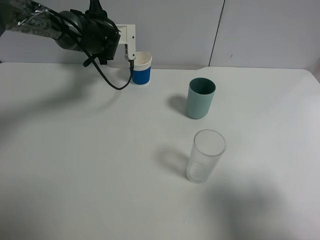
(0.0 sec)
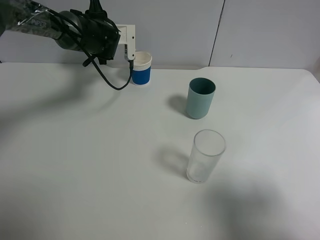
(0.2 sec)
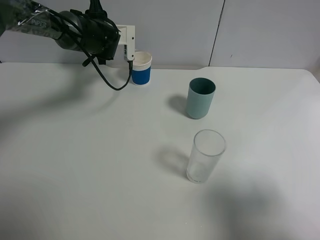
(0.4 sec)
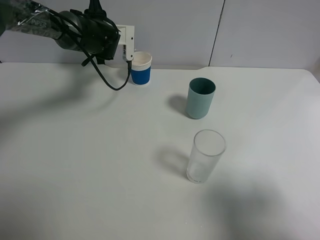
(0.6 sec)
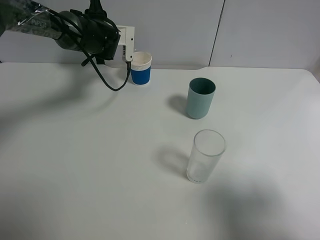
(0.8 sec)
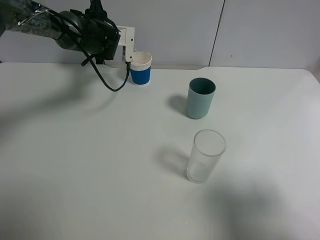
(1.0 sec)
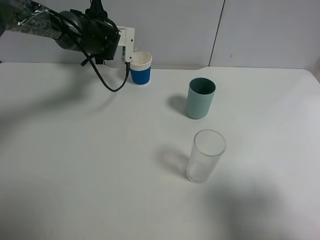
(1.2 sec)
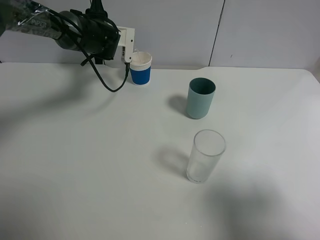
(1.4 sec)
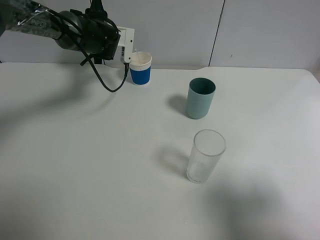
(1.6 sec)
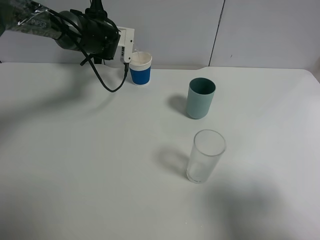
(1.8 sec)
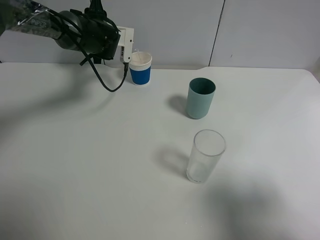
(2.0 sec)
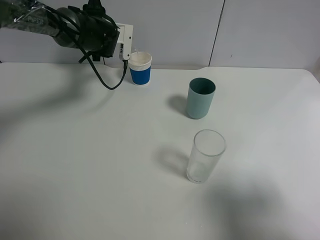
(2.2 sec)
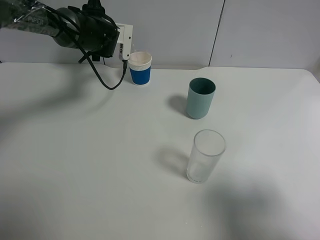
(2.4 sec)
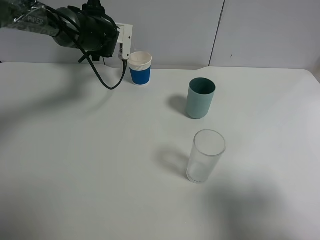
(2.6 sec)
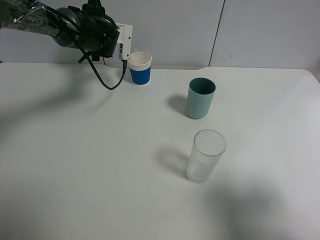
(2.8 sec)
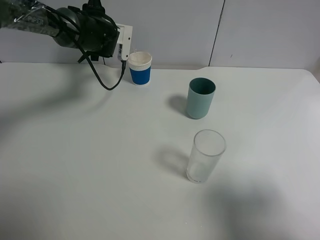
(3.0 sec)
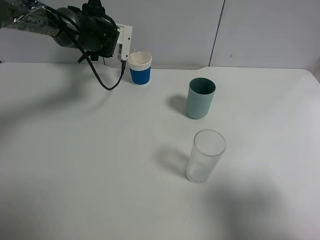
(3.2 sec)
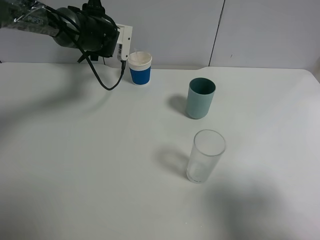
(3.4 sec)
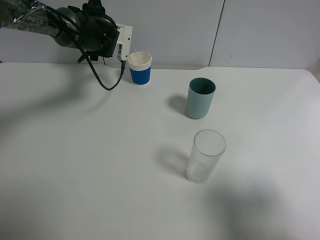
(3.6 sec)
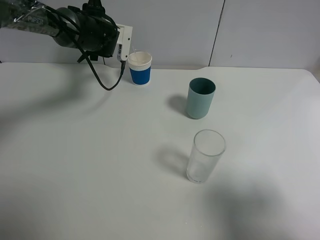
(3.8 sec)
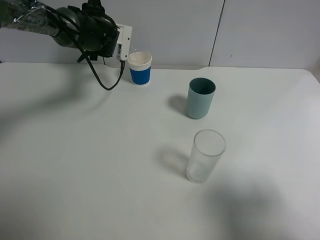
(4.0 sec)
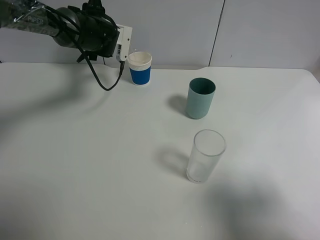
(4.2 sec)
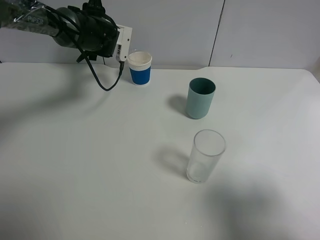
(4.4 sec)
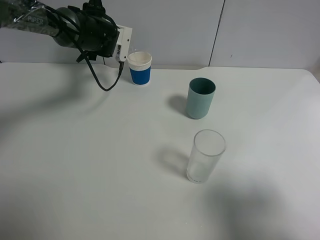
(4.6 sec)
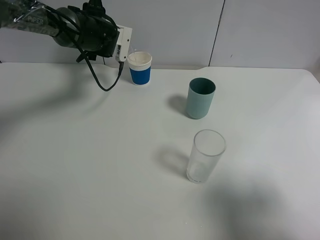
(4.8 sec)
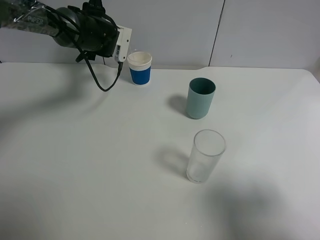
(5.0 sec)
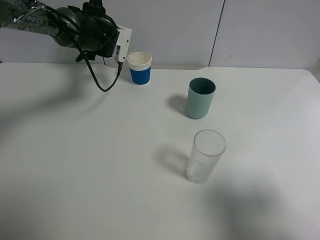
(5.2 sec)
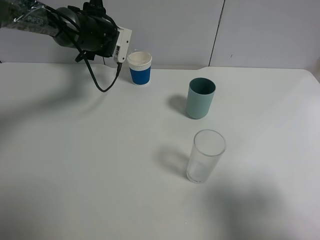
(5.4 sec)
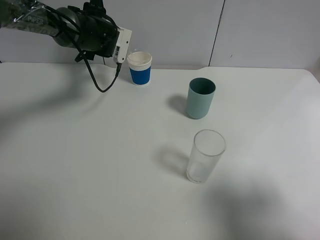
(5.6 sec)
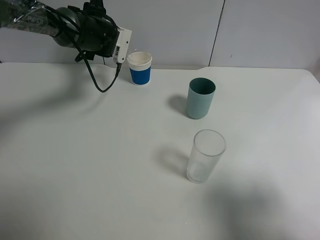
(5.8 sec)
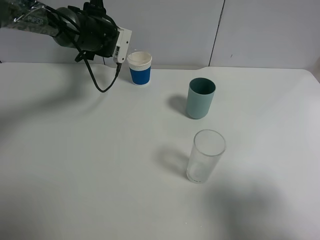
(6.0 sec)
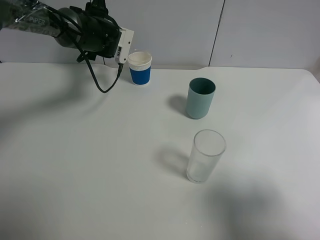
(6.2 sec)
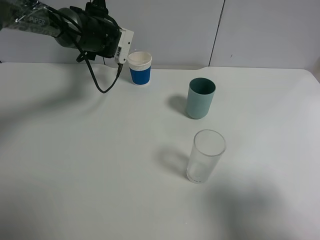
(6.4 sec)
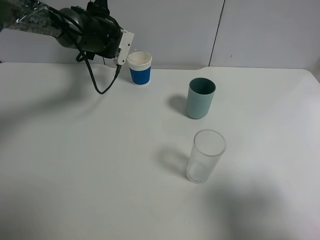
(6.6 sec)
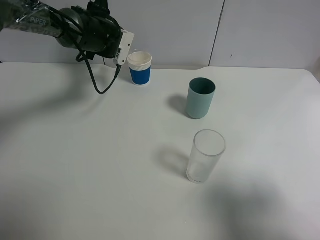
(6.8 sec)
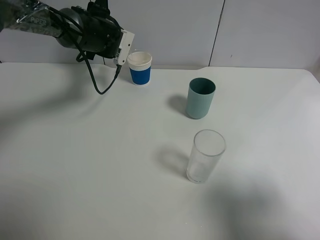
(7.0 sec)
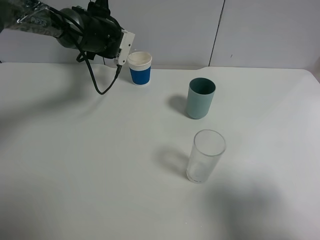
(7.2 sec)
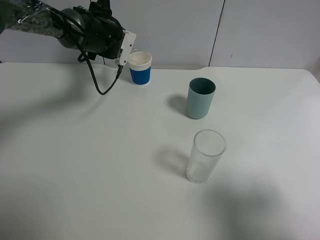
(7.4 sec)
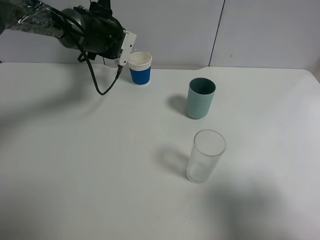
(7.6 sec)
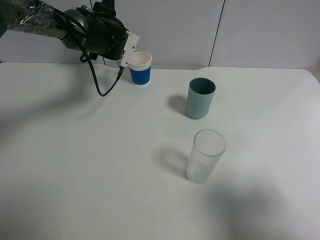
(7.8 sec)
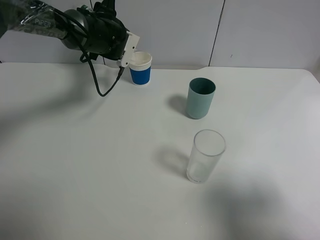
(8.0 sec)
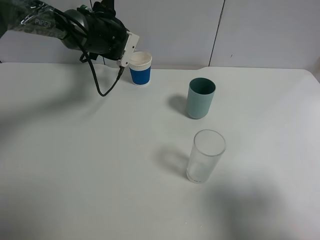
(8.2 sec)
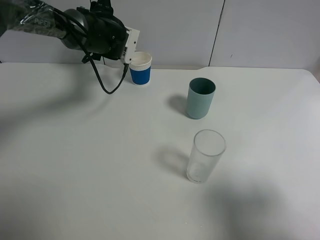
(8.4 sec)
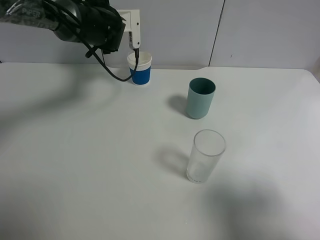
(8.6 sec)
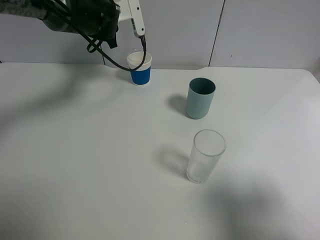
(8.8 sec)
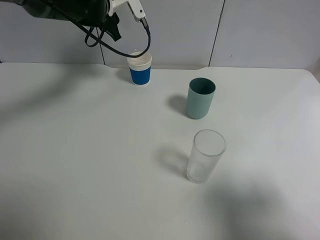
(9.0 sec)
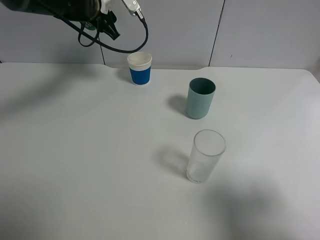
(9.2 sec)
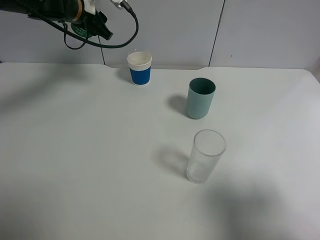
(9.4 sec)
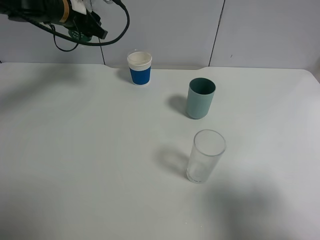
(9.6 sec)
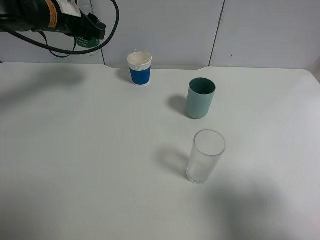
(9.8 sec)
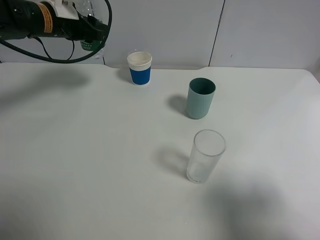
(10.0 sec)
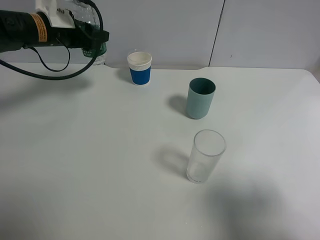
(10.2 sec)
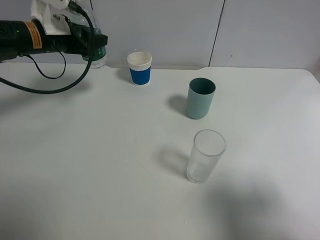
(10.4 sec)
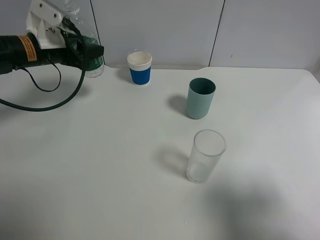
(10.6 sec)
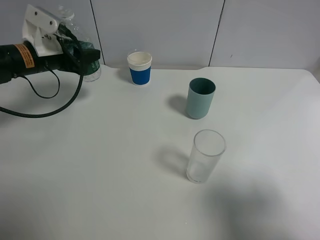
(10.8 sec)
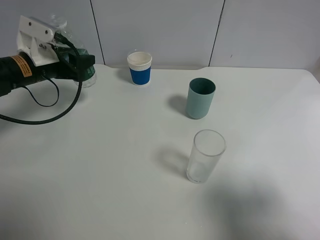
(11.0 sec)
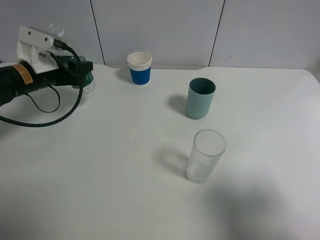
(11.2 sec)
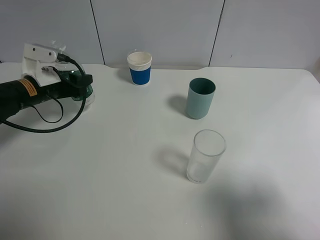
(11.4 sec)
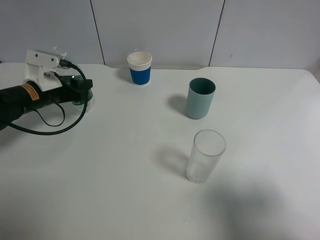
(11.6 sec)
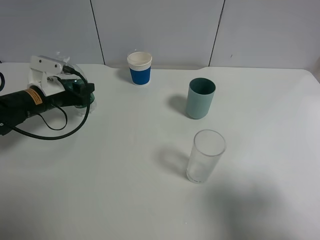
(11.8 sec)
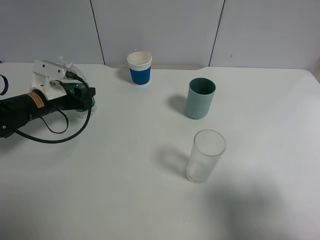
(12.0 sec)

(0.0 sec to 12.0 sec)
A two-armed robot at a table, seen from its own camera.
Task of the whole recording: use a gripper to hold the bottle of the drink and pour it into a random cup.
Step, 0.0 sec - 8.4 sec: Pour the mineral water into the paper cup with the left gripper.
0.0 sec - 1.6 sec: The grippers move only a little.
1.6 sec - 3.0 sec: Both grippers stay put.
3.0 sec - 4.4 sec: Both grippers stay about where they are.
4.4 sec - 6.0 sec: Both grippers stay put.
6.0 sec - 7.6 sec: There are only small adjustments of the grippers.
7.6 sec - 9.0 sec: The left gripper travels upward by approximately 5 cm.
9.0 sec - 10.4 sec: The left gripper shifts roughly 15 cm to the left and backward.
10.4 sec - 12.0 sec: The left gripper goes some 10 cm downward.

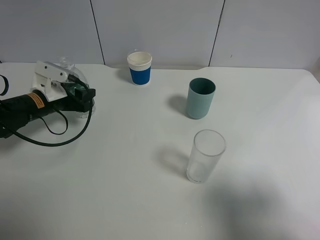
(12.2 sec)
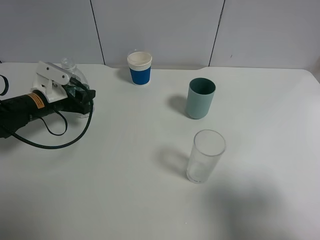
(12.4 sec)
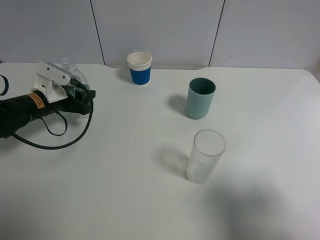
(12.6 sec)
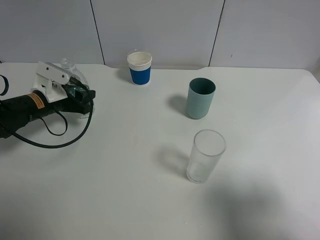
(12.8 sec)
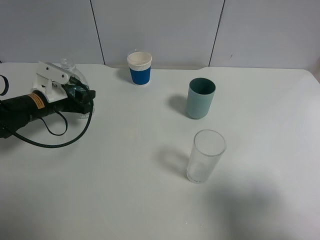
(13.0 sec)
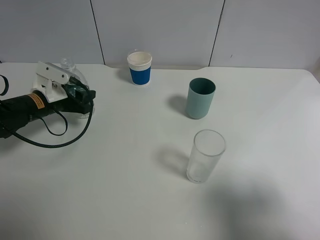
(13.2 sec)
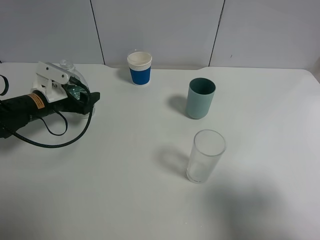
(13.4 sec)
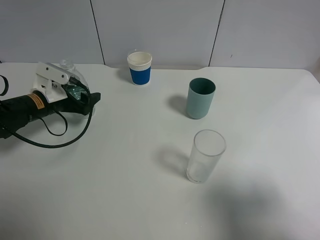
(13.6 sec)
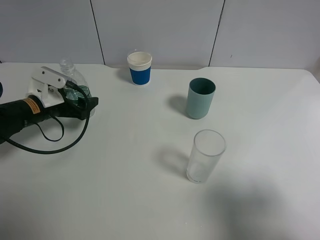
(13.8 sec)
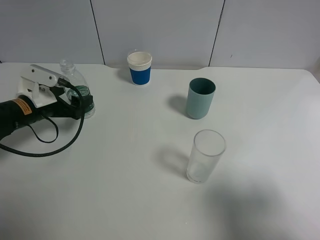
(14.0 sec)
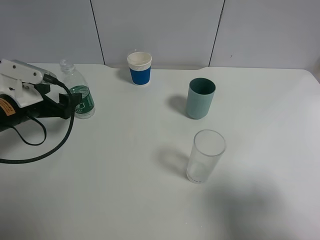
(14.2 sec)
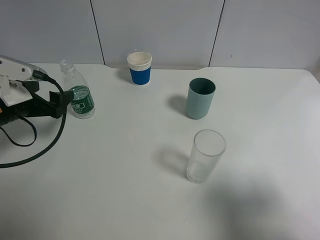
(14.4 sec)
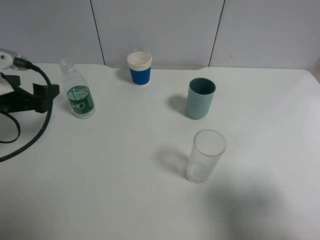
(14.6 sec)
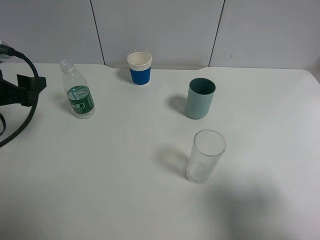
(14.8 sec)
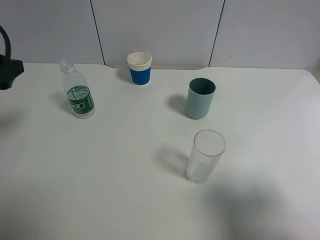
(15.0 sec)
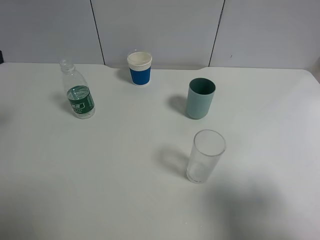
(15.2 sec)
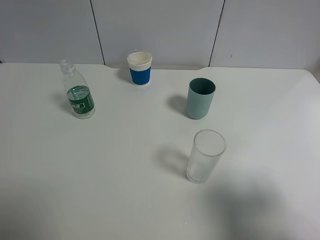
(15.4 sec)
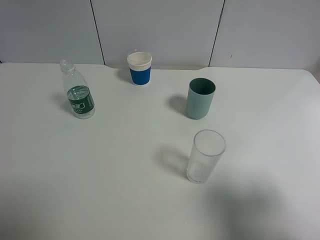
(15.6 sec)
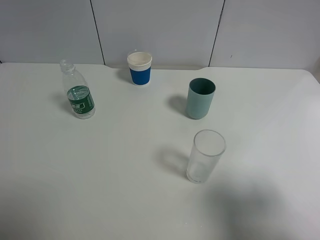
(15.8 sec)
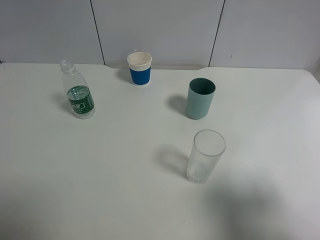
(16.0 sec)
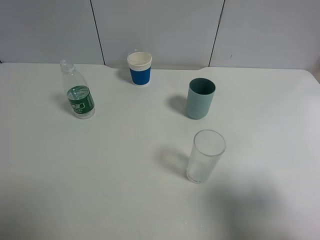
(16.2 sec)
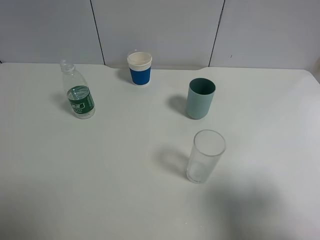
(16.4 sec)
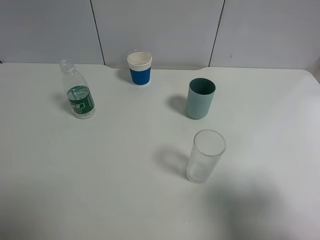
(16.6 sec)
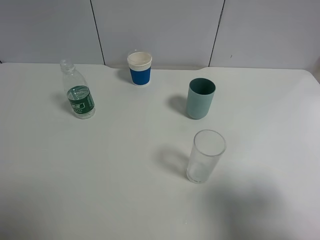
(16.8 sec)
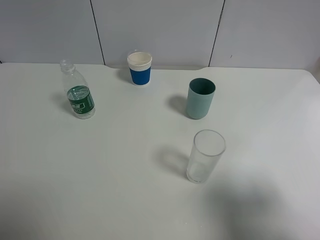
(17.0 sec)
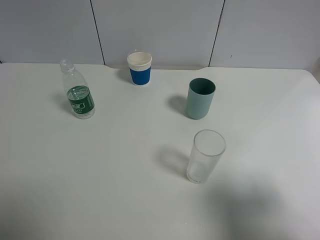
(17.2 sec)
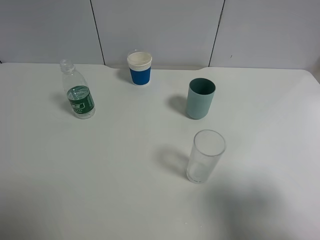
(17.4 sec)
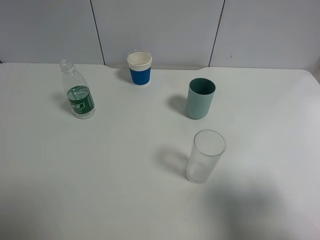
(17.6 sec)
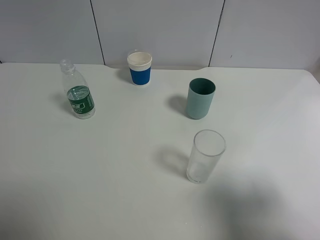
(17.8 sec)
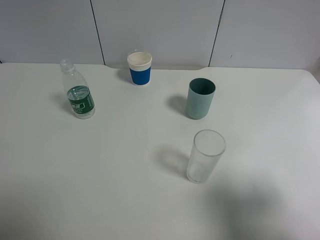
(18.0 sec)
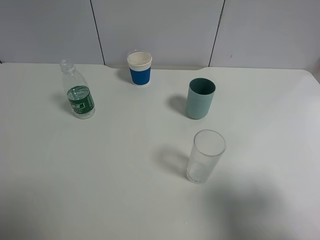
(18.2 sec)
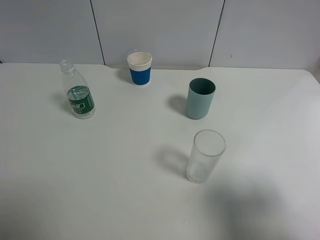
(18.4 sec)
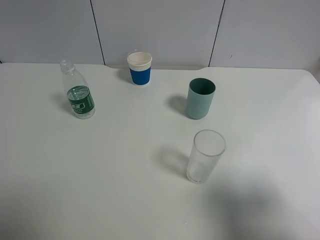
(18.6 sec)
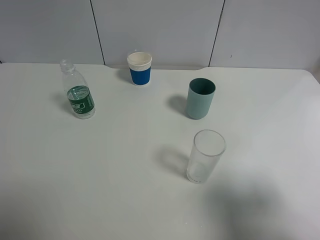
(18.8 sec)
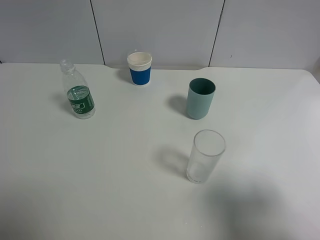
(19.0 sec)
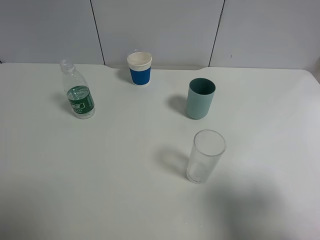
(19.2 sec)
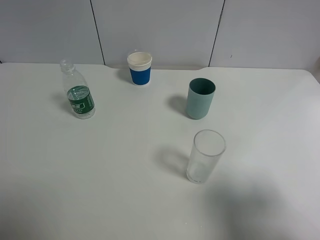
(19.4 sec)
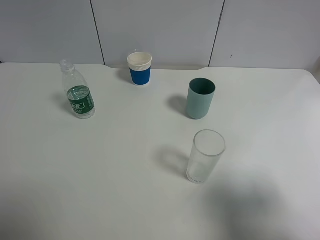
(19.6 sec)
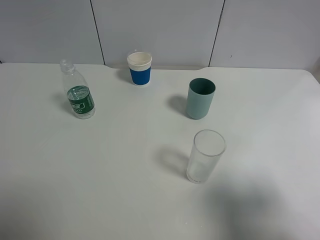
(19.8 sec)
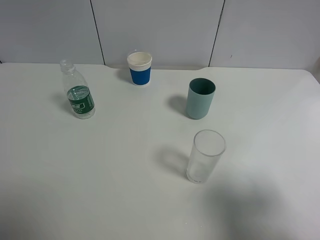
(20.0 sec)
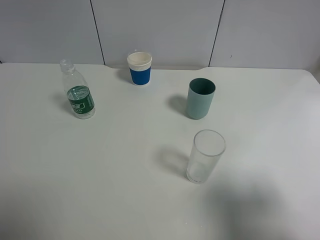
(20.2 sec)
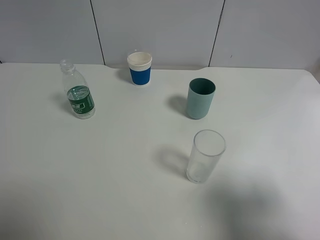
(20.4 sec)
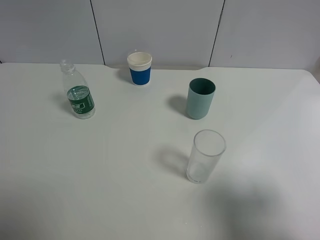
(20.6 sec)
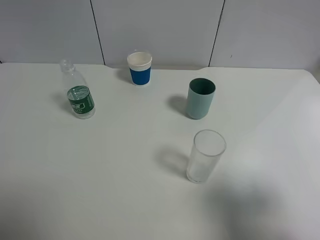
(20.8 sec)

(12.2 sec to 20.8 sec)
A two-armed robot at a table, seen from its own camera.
Task of the whole recording: use a gripper to hold the bottle of the drink and pour it into a random cup.
12.2 sec - 13.6 sec: The left gripper opens.
13.6 sec - 15.0 sec: The left gripper is displaced upward and backward by about 20 cm.
15.0 sec - 16.6 sec: The left gripper heads backward, covering about 20 cm.
18.0 sec - 20.8 sec: Neither gripper changes place.
